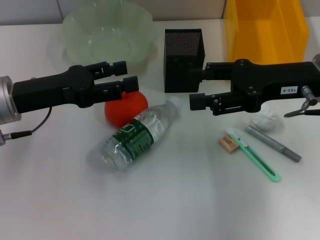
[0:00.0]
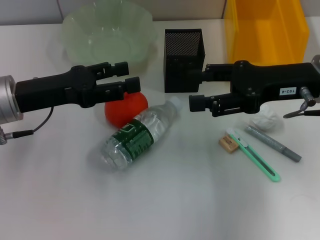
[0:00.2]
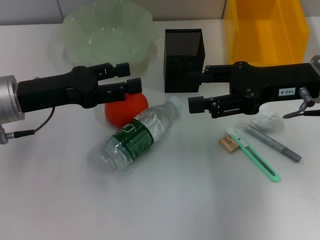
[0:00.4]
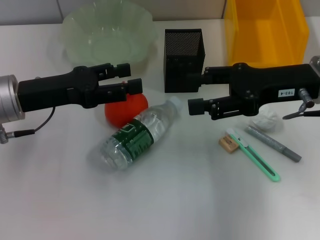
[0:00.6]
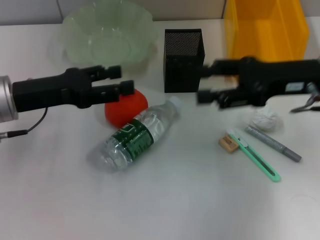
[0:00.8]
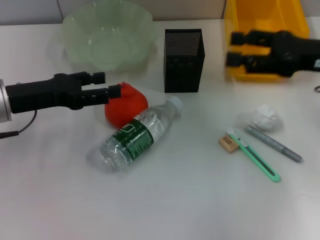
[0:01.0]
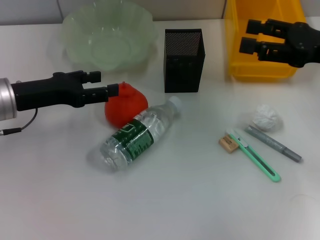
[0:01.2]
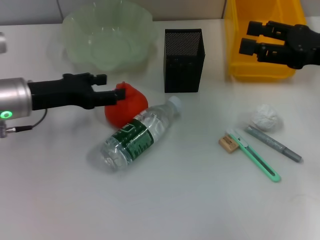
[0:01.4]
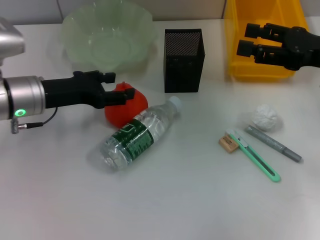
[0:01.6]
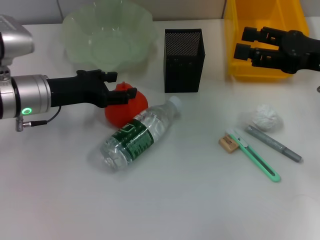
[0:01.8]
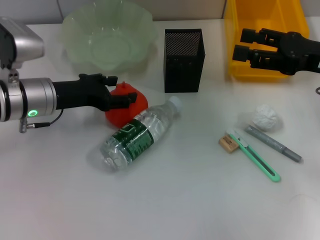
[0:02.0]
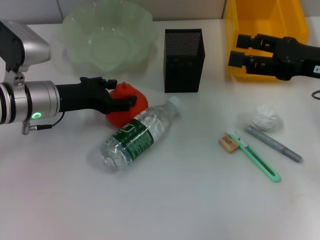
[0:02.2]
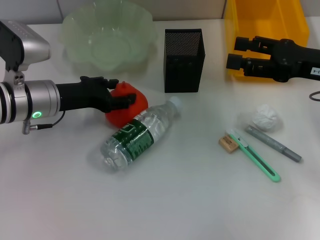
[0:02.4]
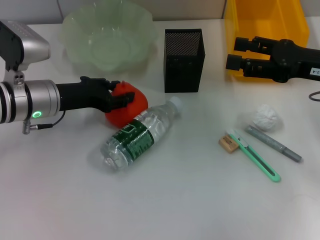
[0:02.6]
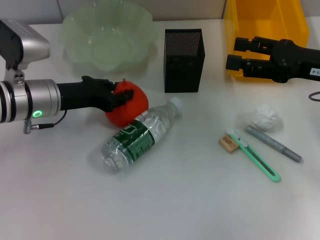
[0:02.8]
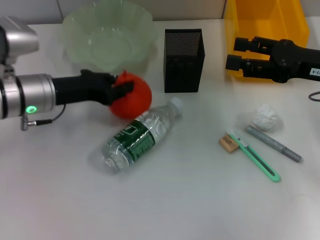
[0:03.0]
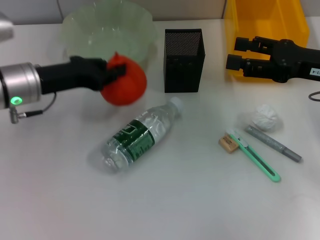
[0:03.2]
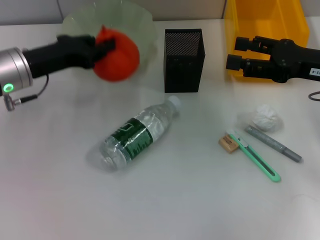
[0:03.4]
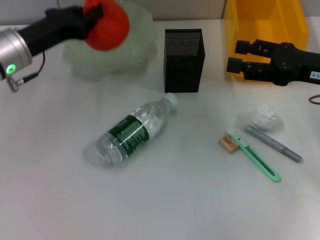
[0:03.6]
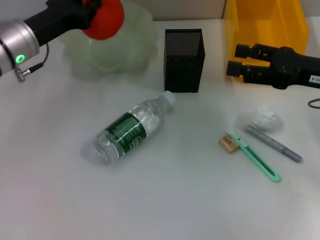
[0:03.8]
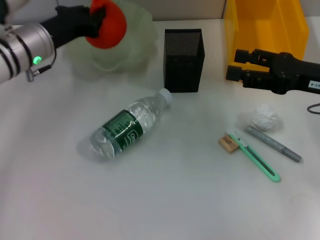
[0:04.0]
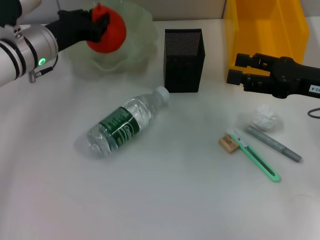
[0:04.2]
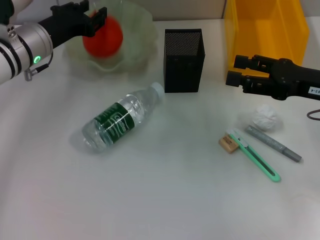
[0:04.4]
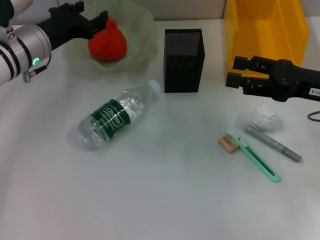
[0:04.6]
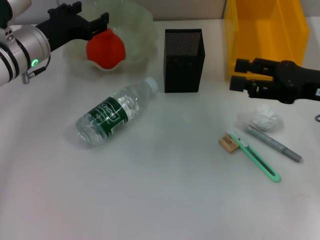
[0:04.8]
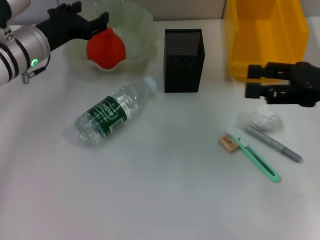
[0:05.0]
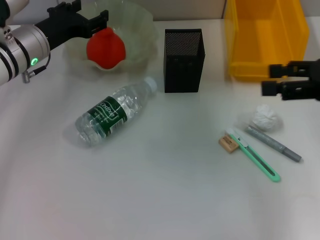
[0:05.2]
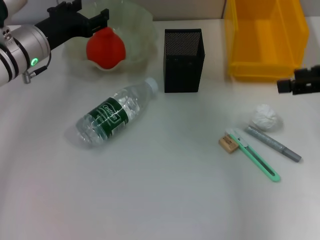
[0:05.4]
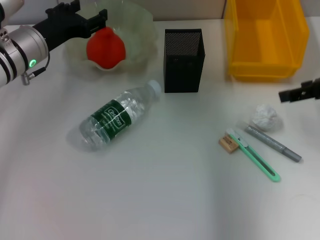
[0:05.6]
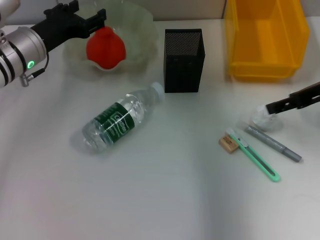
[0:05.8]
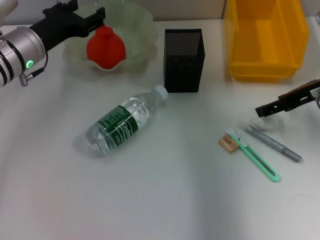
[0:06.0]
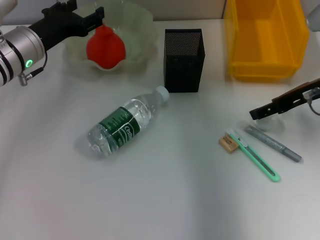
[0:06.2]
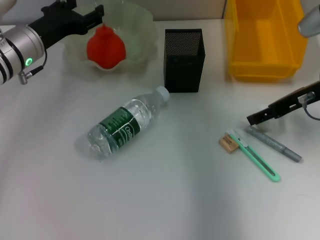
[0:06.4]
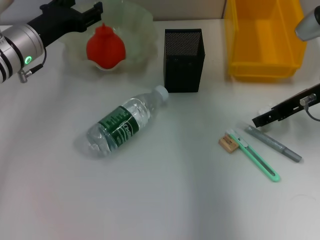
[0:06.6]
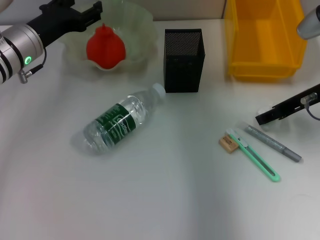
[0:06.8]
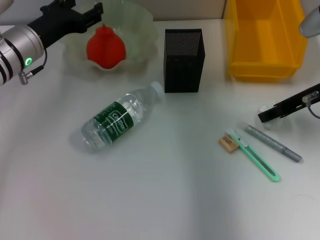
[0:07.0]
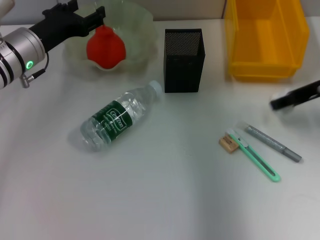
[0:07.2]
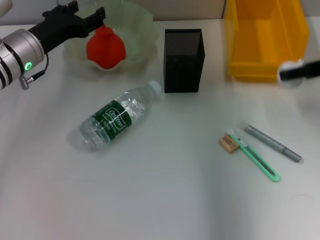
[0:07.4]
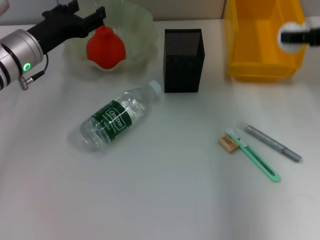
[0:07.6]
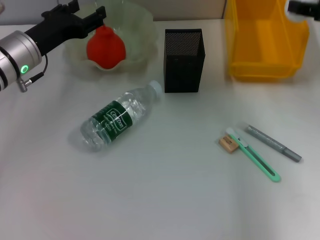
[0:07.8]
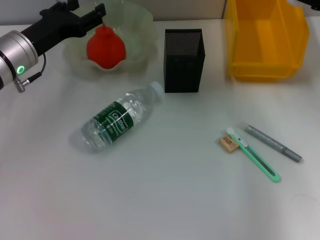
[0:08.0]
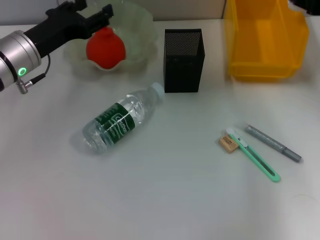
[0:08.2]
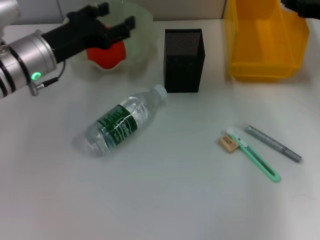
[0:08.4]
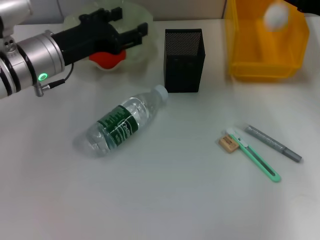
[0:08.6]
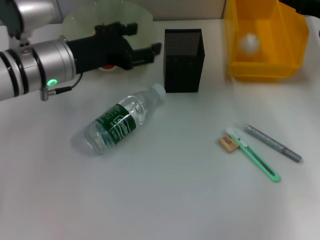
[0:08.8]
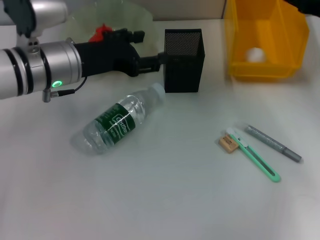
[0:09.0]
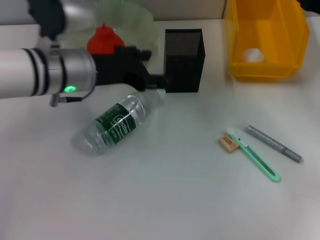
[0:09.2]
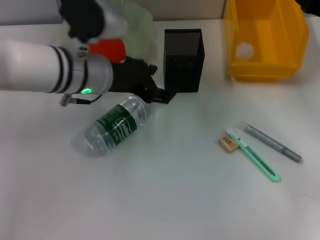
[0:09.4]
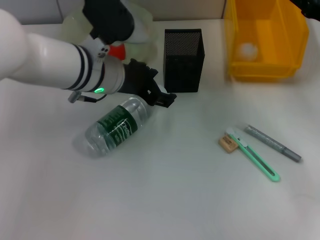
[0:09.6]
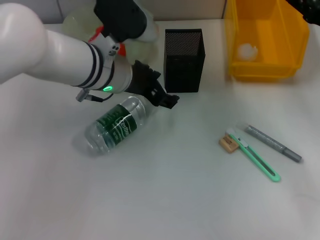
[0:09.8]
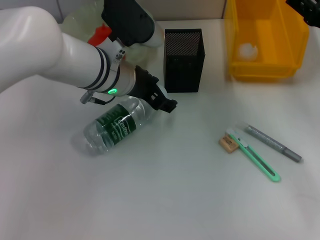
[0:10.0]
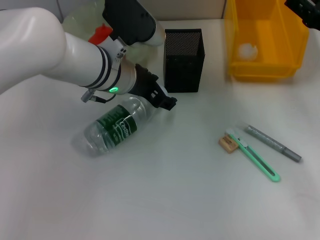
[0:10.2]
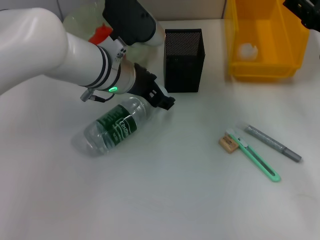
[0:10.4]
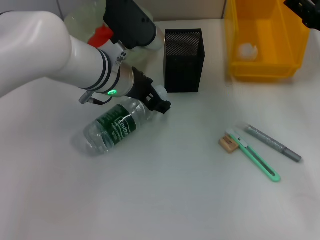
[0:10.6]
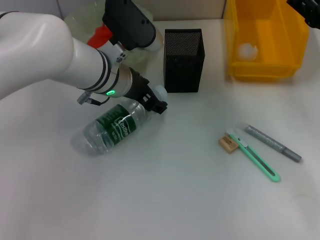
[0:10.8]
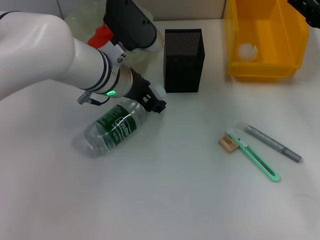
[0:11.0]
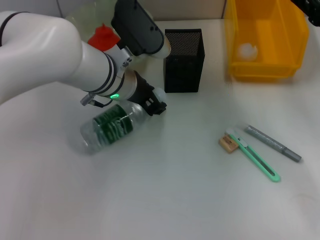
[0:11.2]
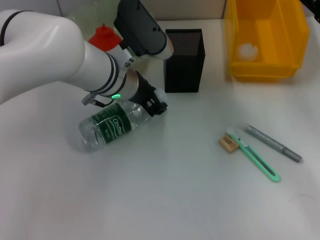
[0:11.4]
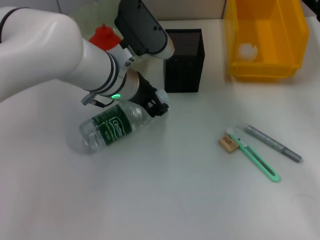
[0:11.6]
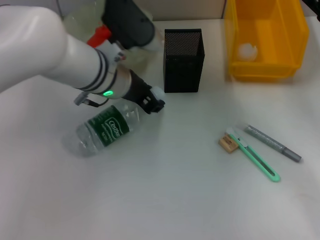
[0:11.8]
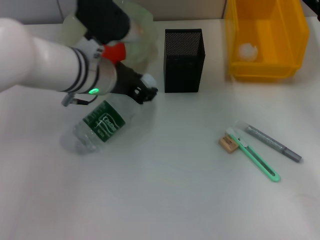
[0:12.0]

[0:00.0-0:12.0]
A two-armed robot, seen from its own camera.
Step, 0.0 to 2.8 s: Grab the orange with the left hand.
Step, 3.0 to 4.4 s: Place the orange into the fruit bowl with the left hand.
Step, 4.6 to 6.8 s: Grab the paper ball with the right hand.
Step, 7.0 to 8.8 s: Place the paper ball into the trash can with the right hand.
Step, 9.0 to 11.4 s: Grab the water bottle with the left hand.
0.0 to 1.6 s: The right gripper moves to the right, about 5 cm.
1.6 to 3.0 s: The left gripper closes its fingers.
3.0 to 4.4 s: The left gripper is displaced forward by roughly 5 cm.
4.4 to 6.0 s: The left gripper opens its fingers.
6.0 to 7.6 s: The right gripper changes place by some 5 cm, and closes up.
7.6 to 9.0 s: The left gripper is displaced to the right by about 5 cm. The right gripper shifts some 5 cm downward, and opens up.
9.0 to 10.4 s: The left gripper heads to the right, covering some 10 cm; the right gripper travels backward by some 5 cm.
10.4 to 12.0 s: There are only small adjustments of the grippers.

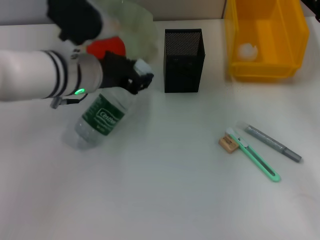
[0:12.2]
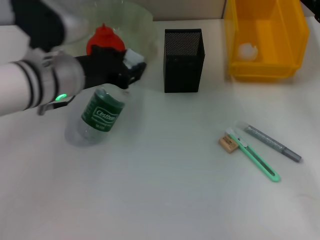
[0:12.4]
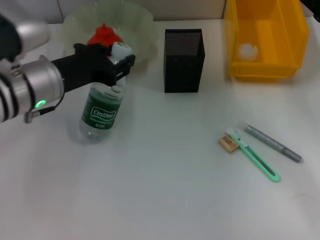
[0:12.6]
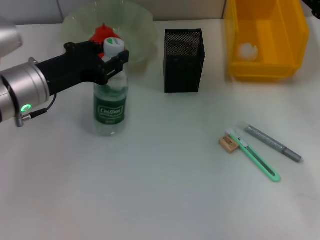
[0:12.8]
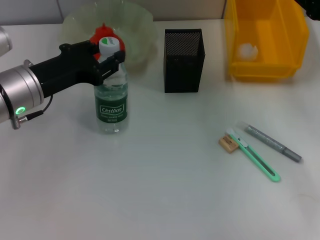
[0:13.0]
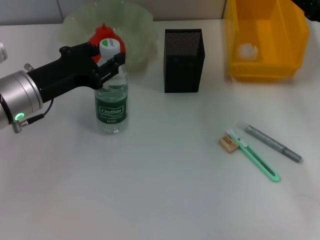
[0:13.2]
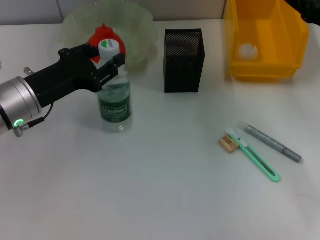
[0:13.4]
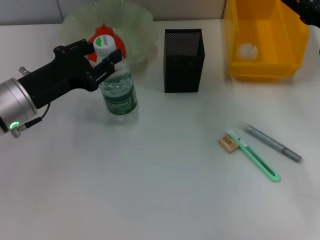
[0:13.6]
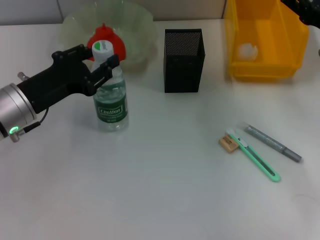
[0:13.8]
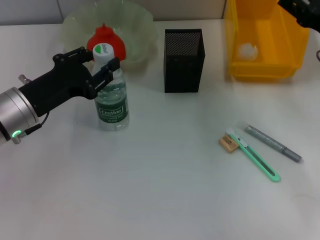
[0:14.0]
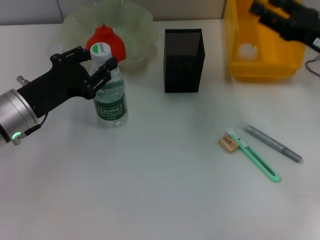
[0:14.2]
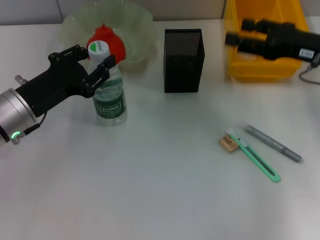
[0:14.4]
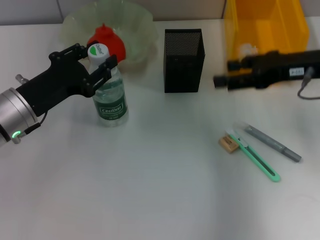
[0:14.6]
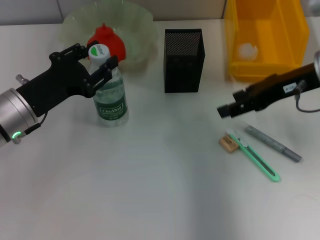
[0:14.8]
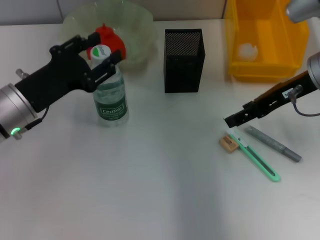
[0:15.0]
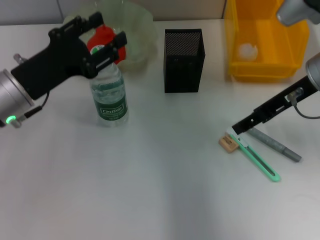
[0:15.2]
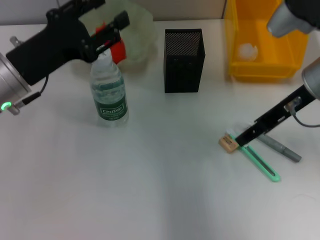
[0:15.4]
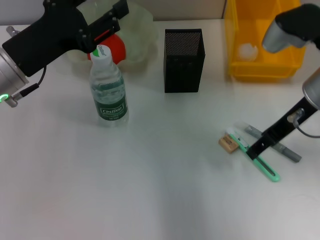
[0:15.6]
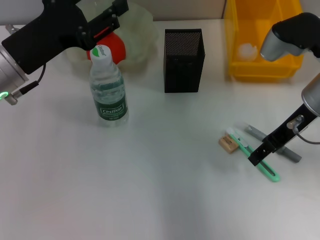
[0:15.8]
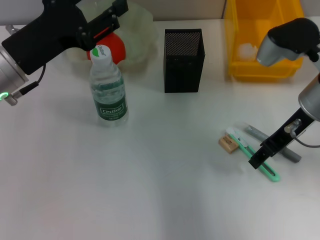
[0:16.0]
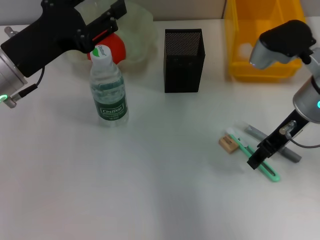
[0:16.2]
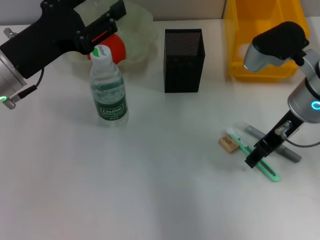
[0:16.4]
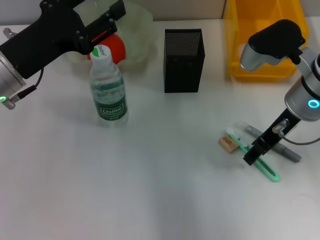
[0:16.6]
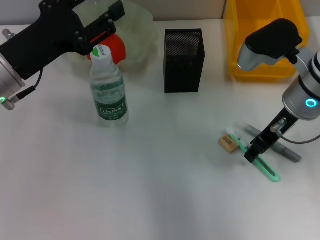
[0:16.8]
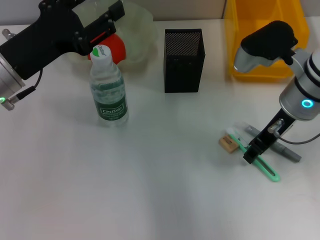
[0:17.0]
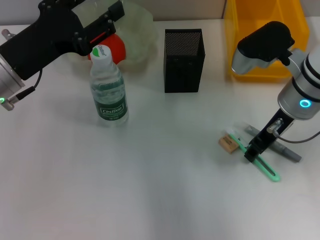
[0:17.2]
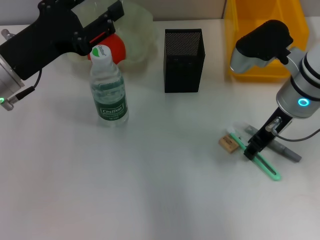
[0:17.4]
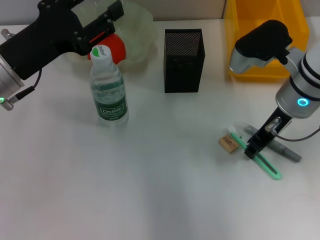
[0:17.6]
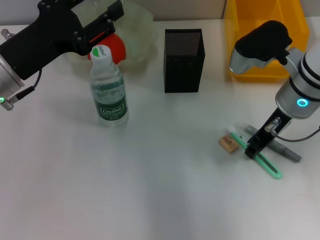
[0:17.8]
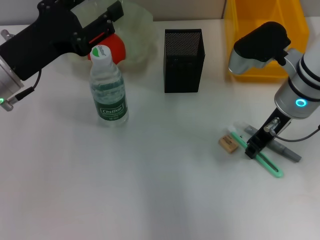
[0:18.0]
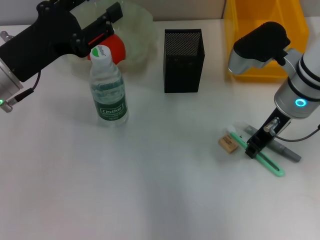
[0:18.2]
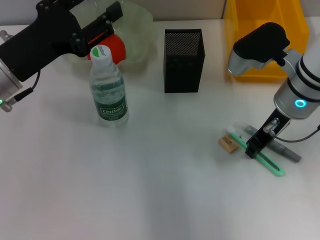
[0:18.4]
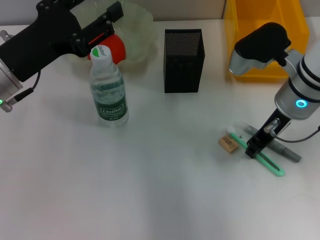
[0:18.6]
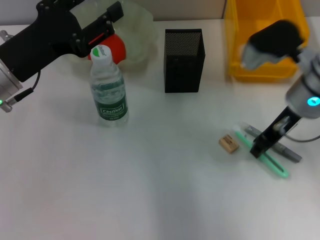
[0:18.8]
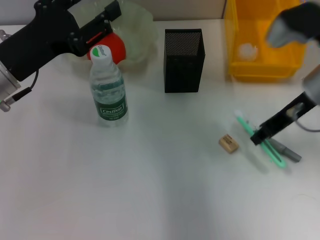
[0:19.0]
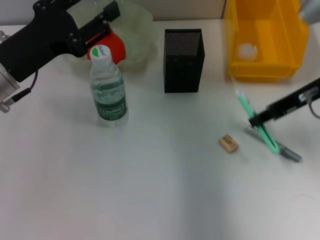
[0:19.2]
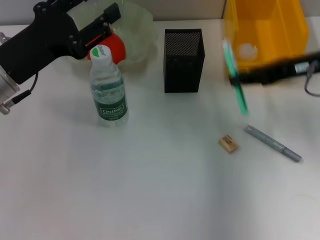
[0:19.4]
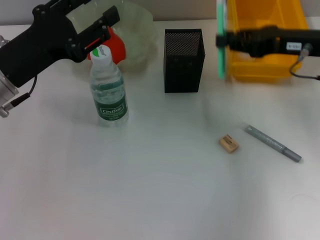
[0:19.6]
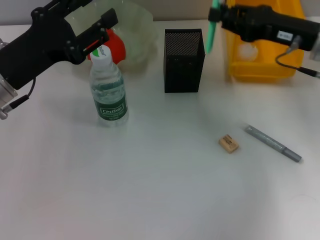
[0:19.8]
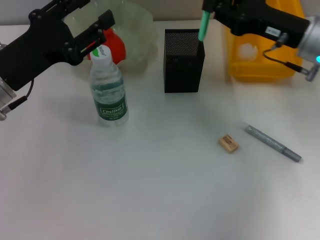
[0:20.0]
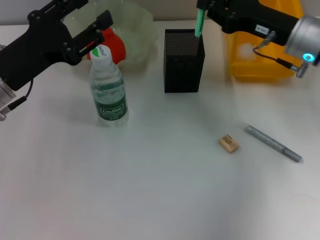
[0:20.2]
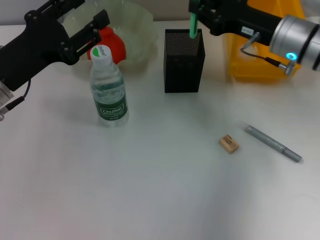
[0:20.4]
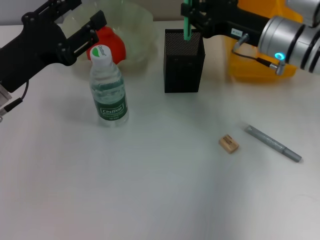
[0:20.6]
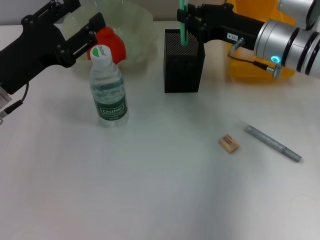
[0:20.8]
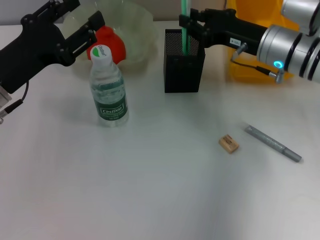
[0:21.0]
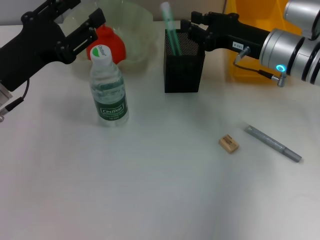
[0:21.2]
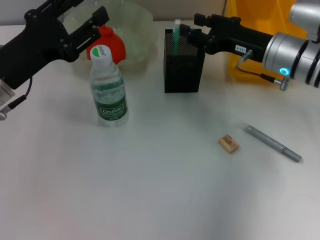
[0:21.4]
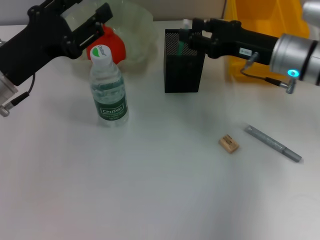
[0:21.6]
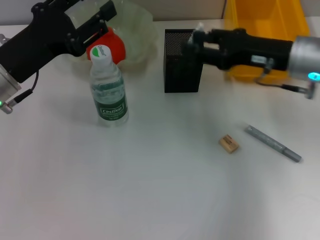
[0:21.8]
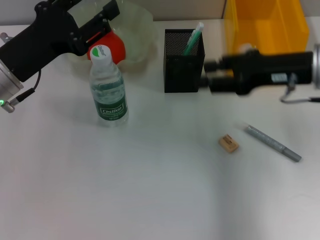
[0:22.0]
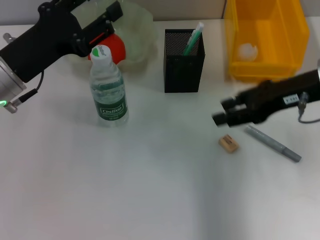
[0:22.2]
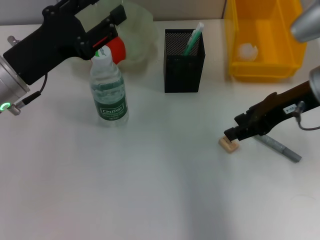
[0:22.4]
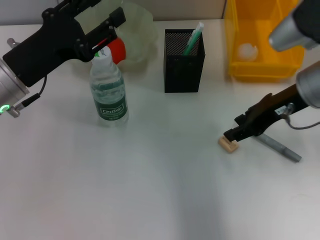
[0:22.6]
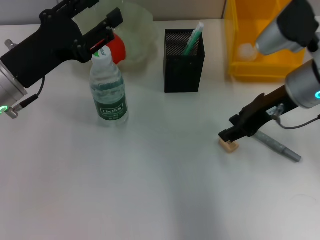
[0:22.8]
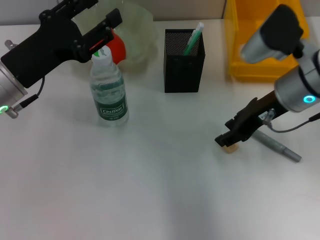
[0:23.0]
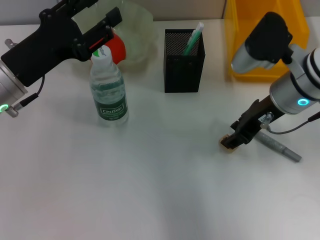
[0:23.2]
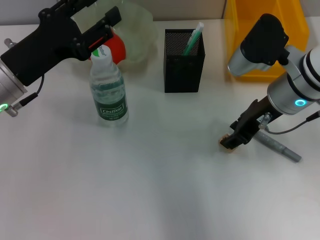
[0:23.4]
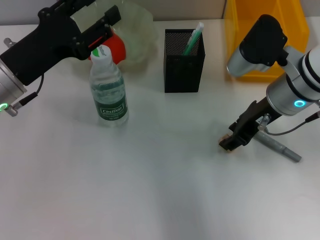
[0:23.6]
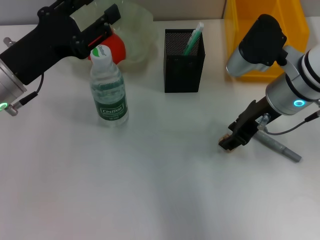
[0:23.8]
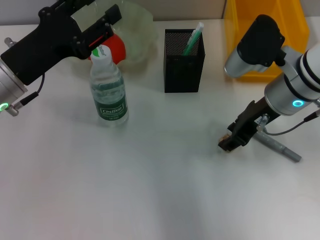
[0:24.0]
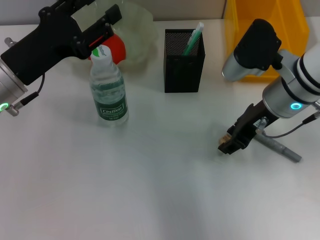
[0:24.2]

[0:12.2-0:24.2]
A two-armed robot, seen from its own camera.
Step, 12.2 to 14.8 s: Place the water bottle on the table with the left hand.
Step, 15.0 to 18.6 s: Grab the blue utility knife with the right hand.
Step, 18.8 to 21.6 s: Place the blue utility knife into the pen holder with the right hand.
12.2 to 13.8 s: The left gripper heads to the left and backward, covering about 10 cm.
13.8 to 15.2 s: The right gripper goes approximately 10 cm to the left and upward.
15.2 to 16.6 s: The grippers move only a little.
16.6 to 18.2 s: The right gripper closes.
18.2 to 19.8 s: The right gripper is displaced to the right by some 5 cm.
19.8 to 21.2 s: The right gripper shifts by about 5 cm.
21.2 to 22.6 s: The right gripper shifts about 5 cm upward.
22.6 to 24.2 s: The grippers move only a little.
